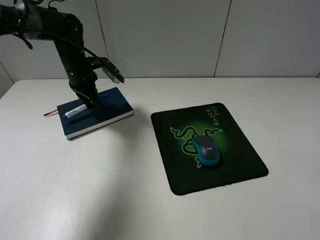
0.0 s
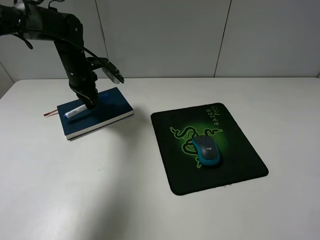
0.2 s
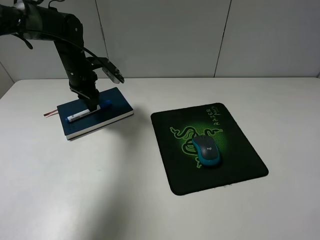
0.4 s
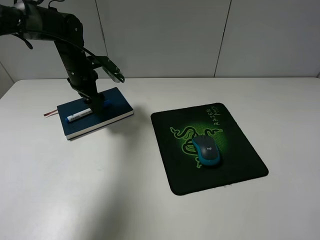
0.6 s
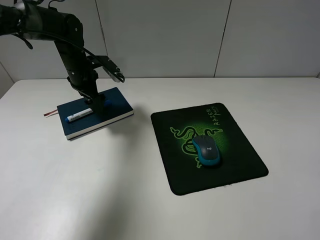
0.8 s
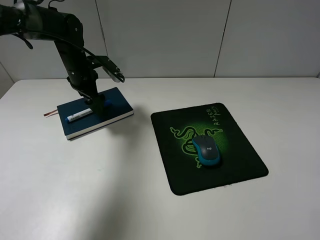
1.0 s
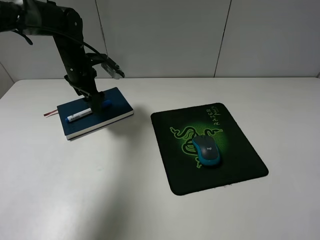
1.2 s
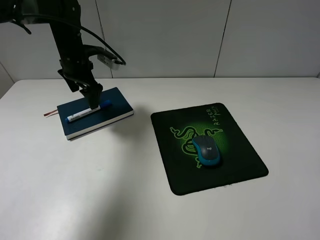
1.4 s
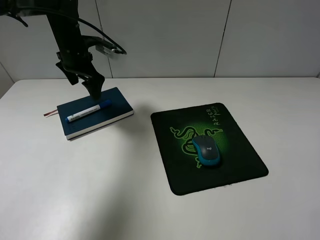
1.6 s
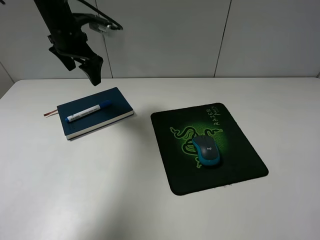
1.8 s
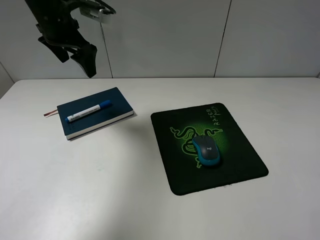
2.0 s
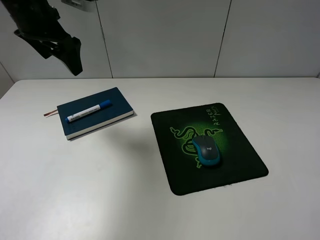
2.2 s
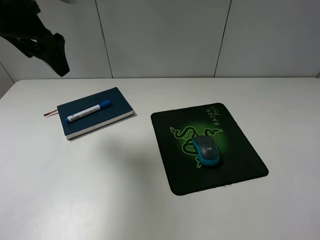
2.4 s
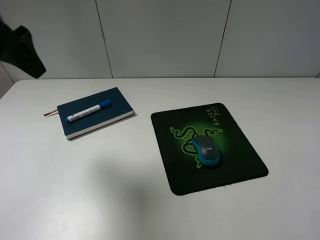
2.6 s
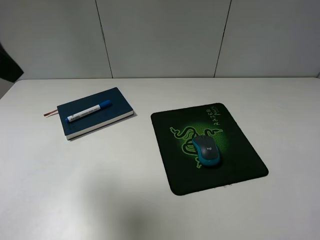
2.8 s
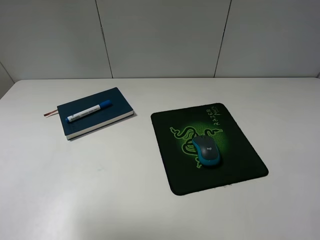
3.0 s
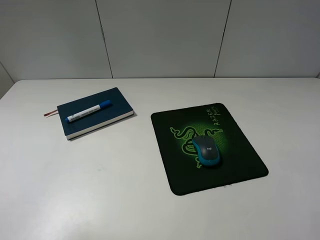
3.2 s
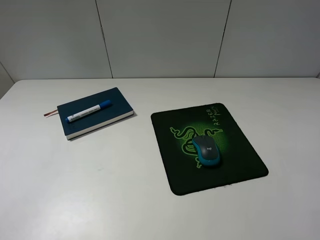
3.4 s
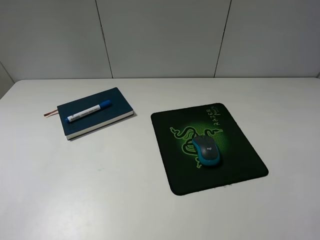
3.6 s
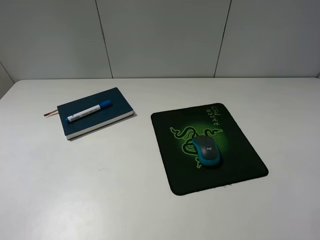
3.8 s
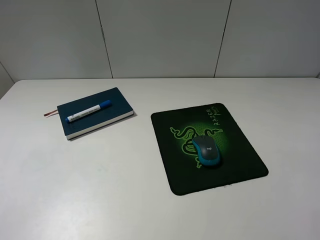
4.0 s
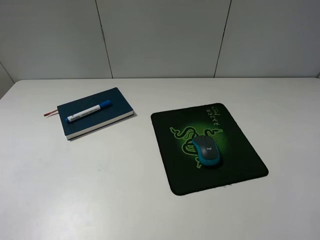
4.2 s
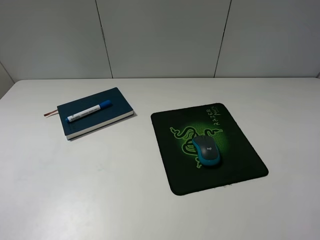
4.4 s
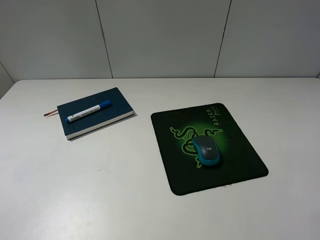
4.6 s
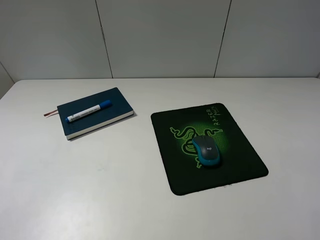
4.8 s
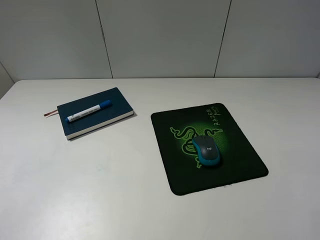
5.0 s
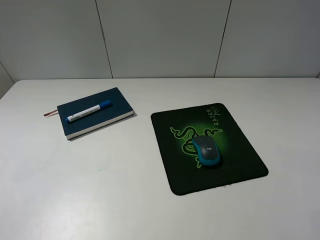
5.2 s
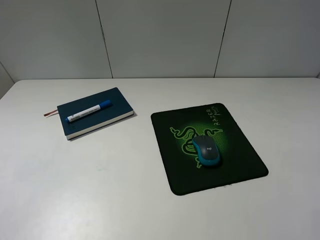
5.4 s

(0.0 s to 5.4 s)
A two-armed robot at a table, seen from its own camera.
0.0 s - 1.4 s: The left gripper opens.
1.4 s - 2.8 s: The left gripper moves backward and upward, about 30 cm.
2.8 s - 4.0 s: The left gripper goes approximately 20 cm backward and downward.
